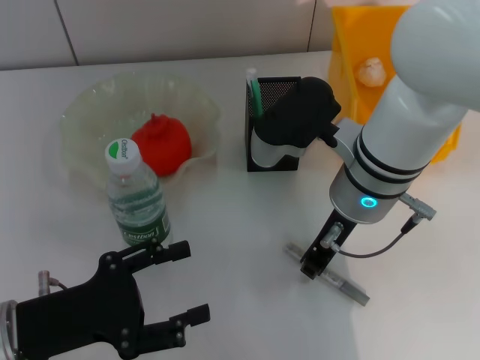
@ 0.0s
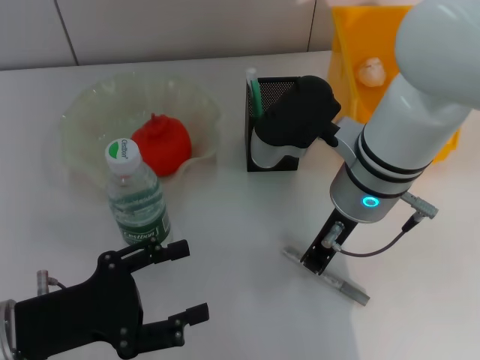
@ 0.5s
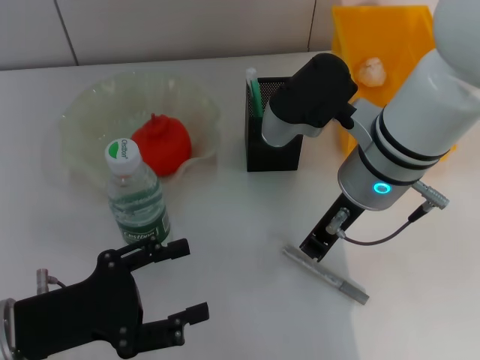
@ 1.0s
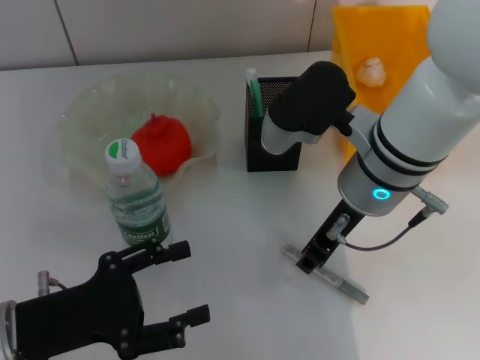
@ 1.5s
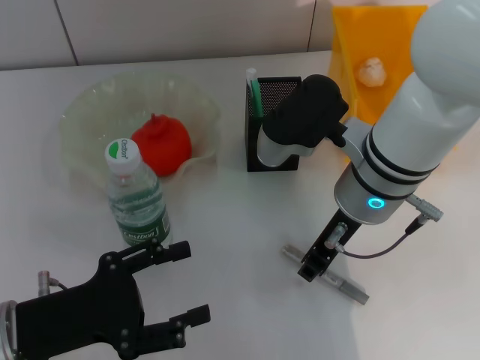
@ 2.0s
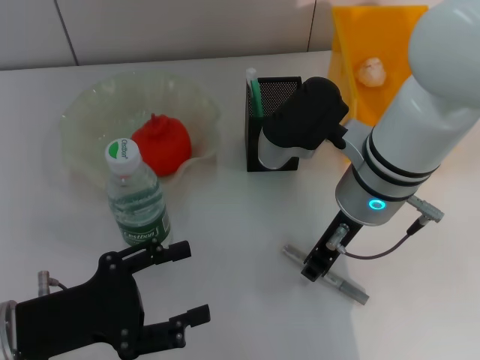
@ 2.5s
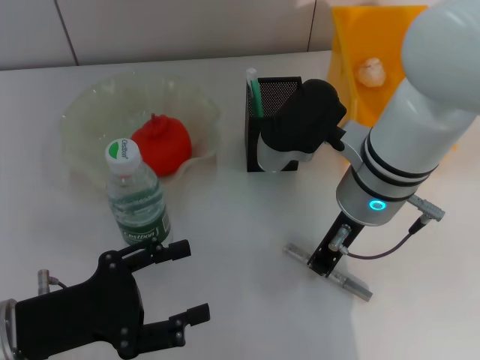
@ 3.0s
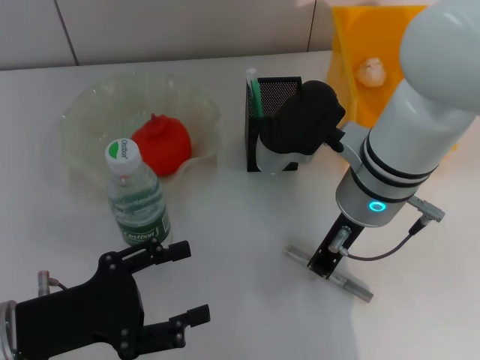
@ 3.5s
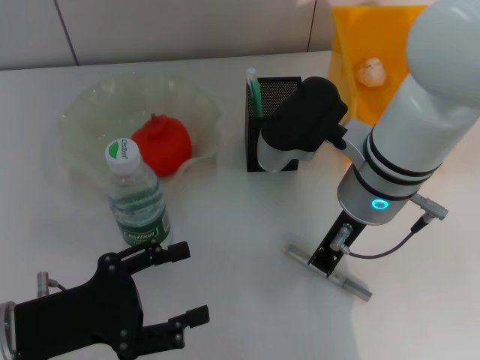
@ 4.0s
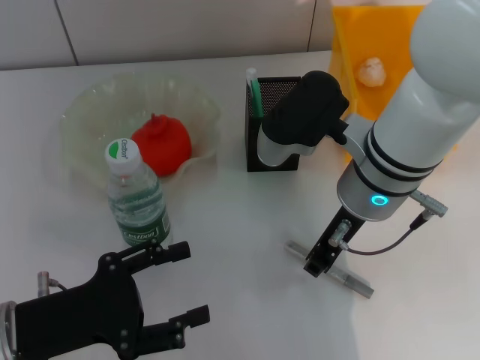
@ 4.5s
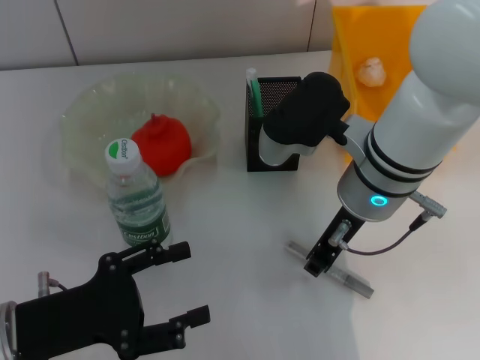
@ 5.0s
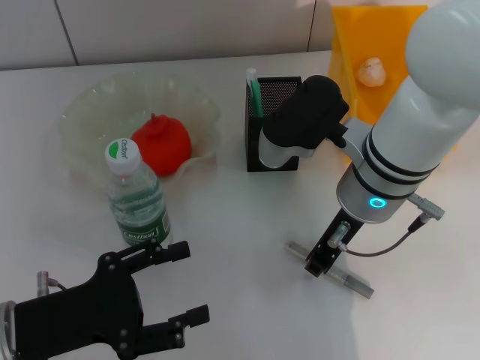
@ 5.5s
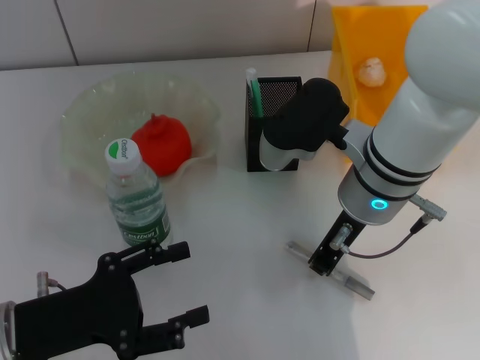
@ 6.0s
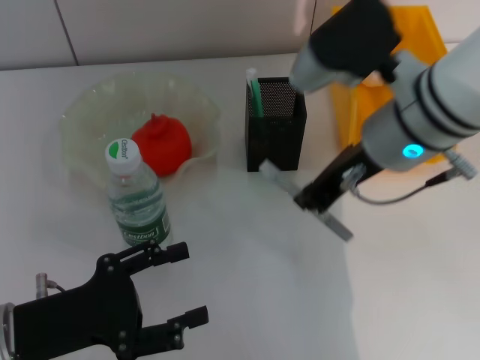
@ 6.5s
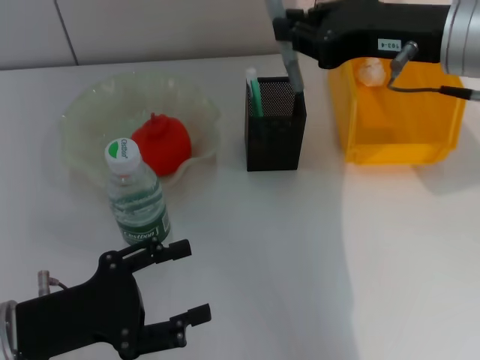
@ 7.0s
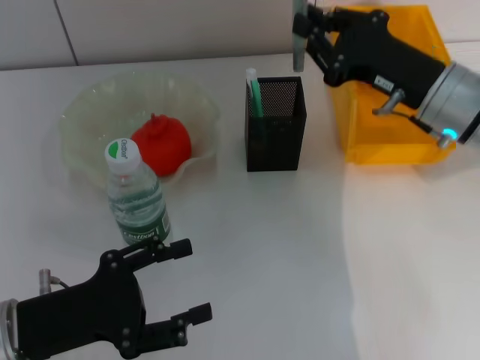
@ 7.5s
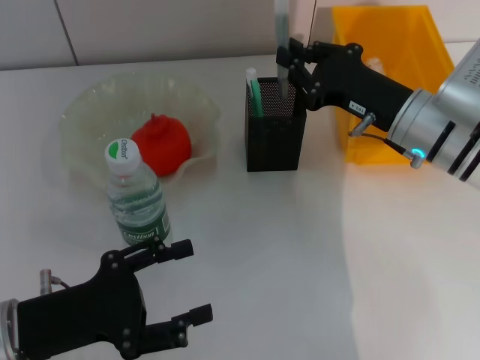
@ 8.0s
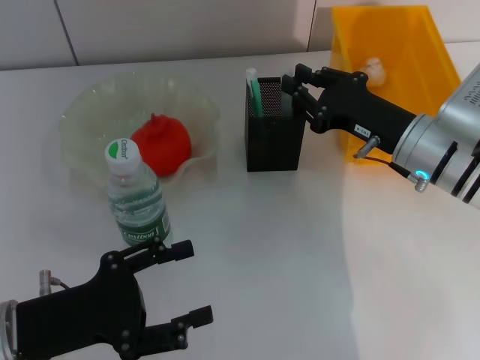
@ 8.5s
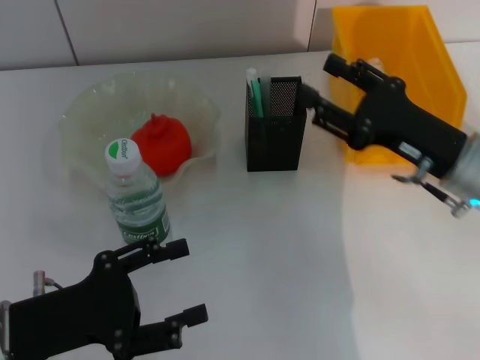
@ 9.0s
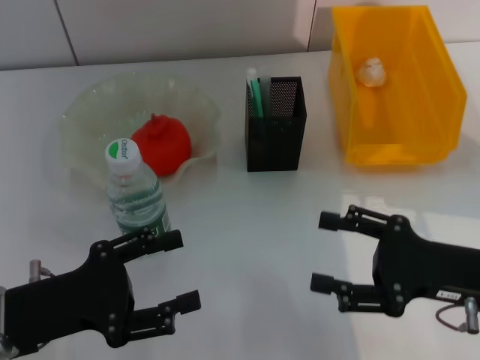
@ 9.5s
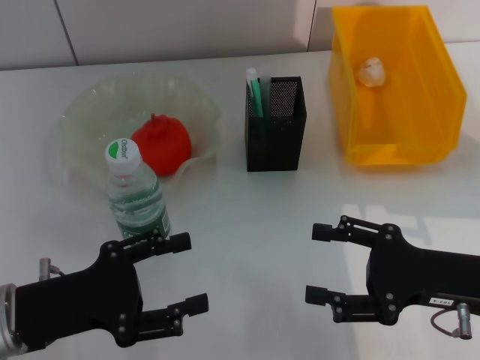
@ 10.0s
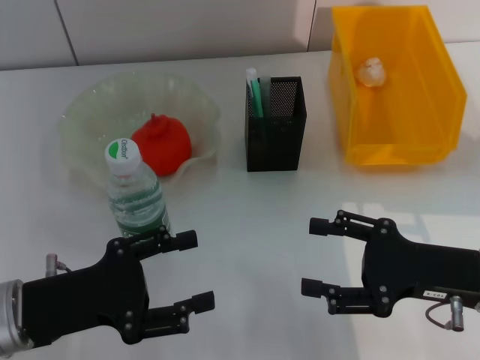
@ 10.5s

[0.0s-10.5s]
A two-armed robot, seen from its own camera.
Step, 0.0s to 5.5s: Grab the gray glue with the right hand.
Step, 6.0s to 8.5s: Place the gray glue into the pen holder with the right hand.
0.0s to 2.0s: There are only small adjustments of the grippers.
2.0s to 4.0s: The right gripper closes its fingers.
4.0s to 6.5s: The right gripper heads upward, covering approximately 5 cm.
6.5s to 8.5s: The right gripper shifts approximately 15 cm downward and to the right.
8.5s to 10.5s: The right gripper moves backward, roughly 10 cm, and opens its fingers.
